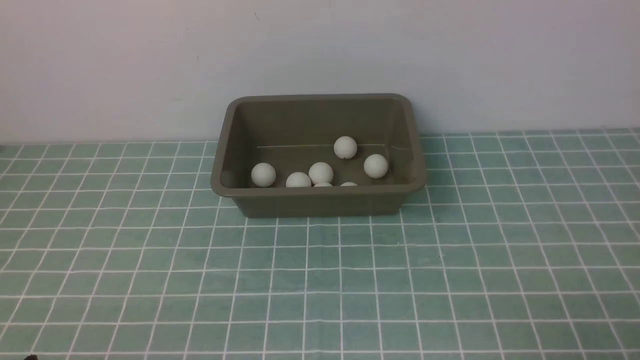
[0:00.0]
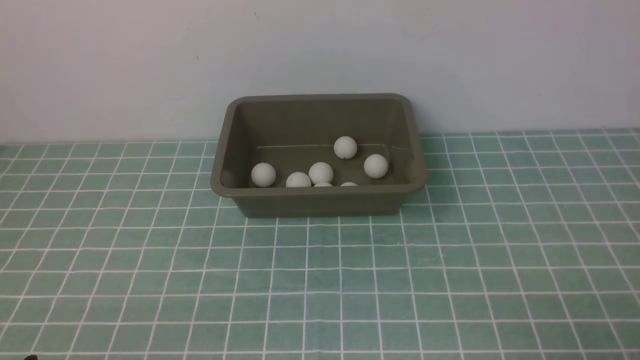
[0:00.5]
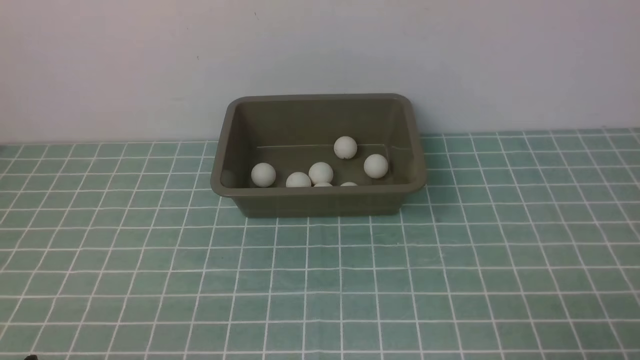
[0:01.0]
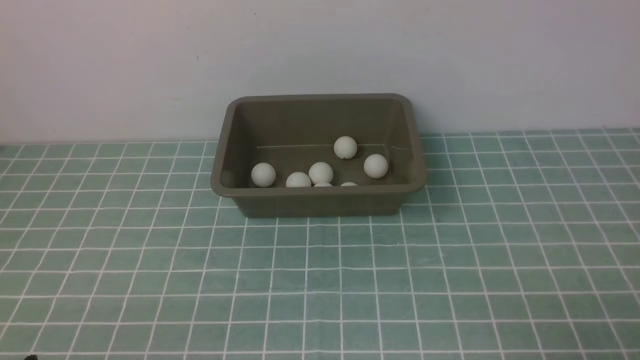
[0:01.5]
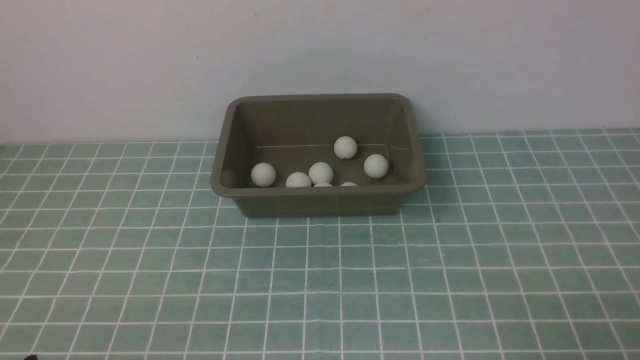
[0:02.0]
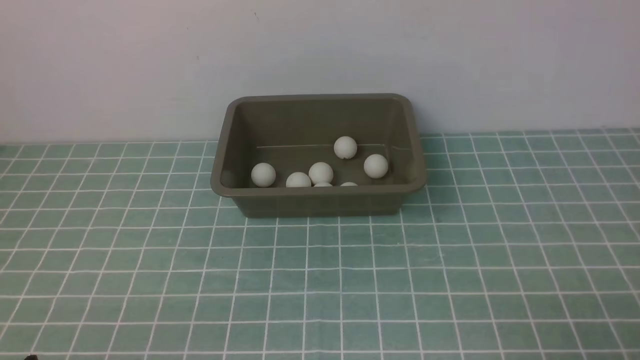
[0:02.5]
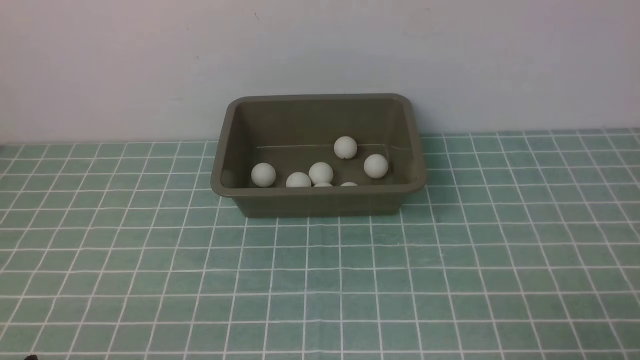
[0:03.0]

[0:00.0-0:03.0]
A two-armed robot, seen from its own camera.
0:00.0 to 0:03.0: Both grippers stay put.
